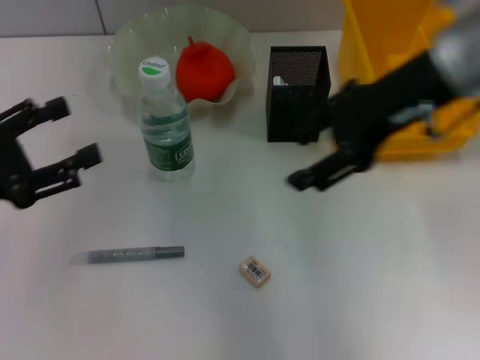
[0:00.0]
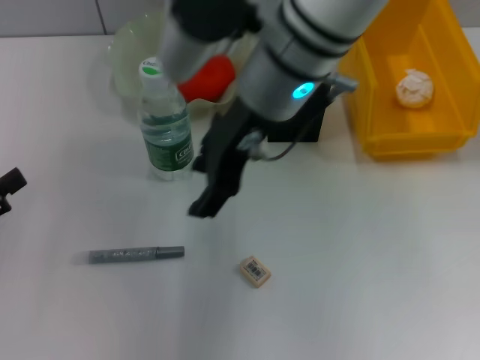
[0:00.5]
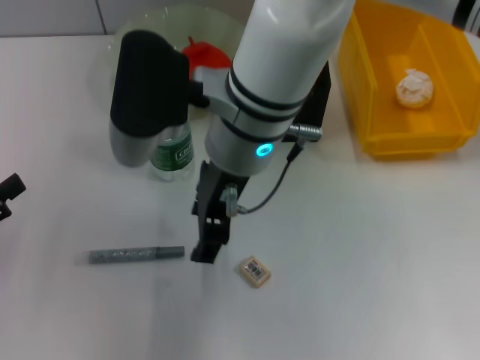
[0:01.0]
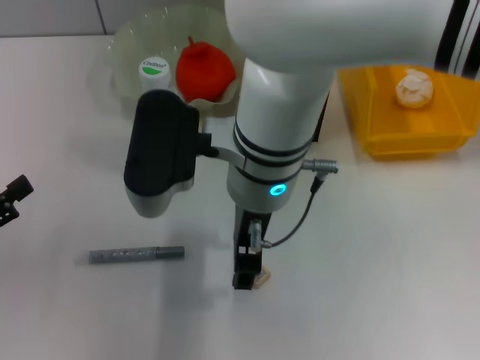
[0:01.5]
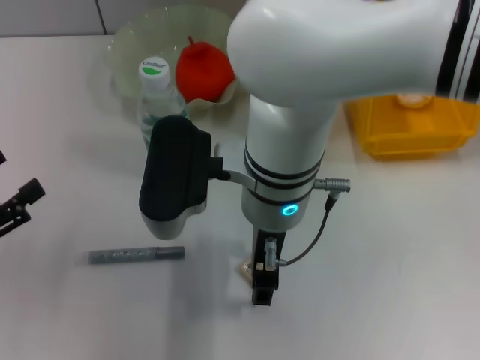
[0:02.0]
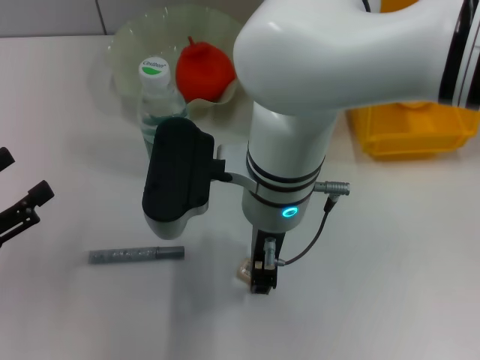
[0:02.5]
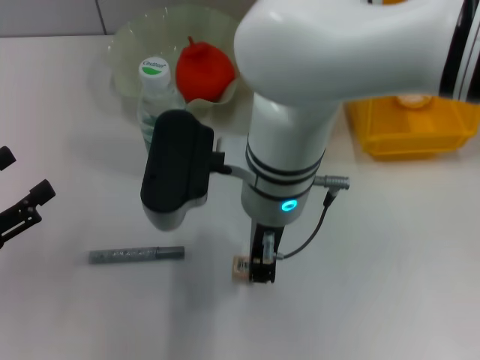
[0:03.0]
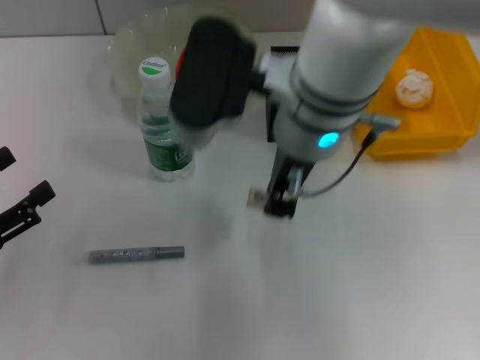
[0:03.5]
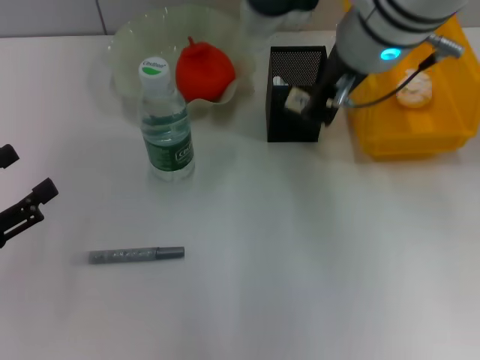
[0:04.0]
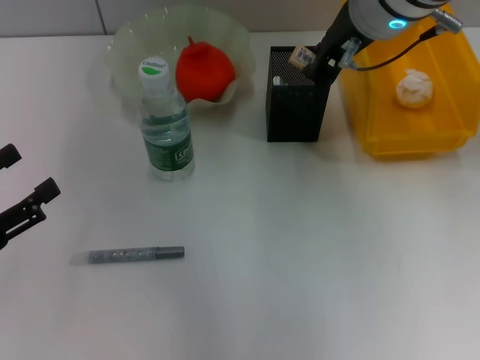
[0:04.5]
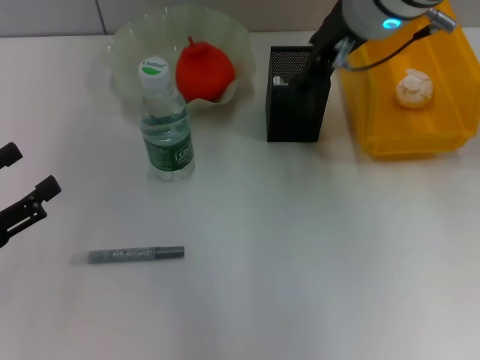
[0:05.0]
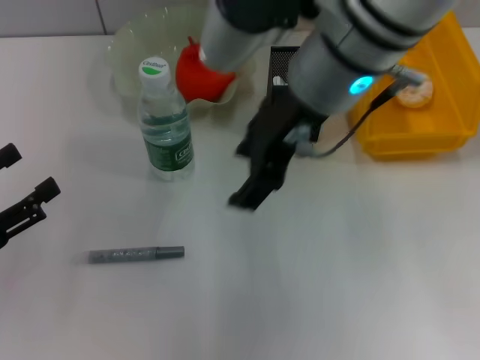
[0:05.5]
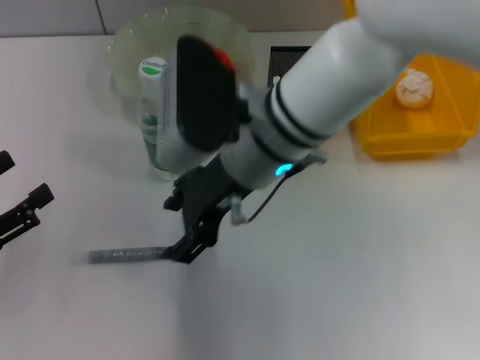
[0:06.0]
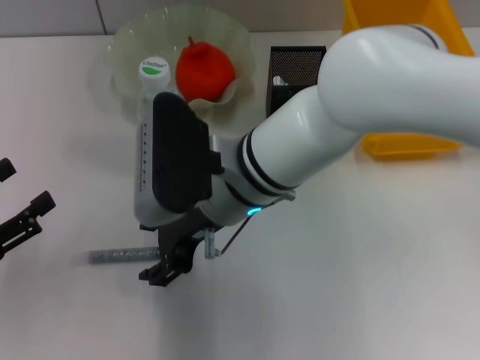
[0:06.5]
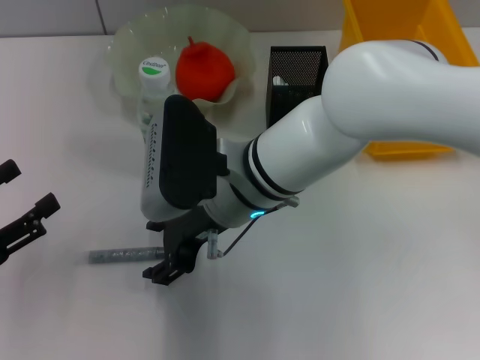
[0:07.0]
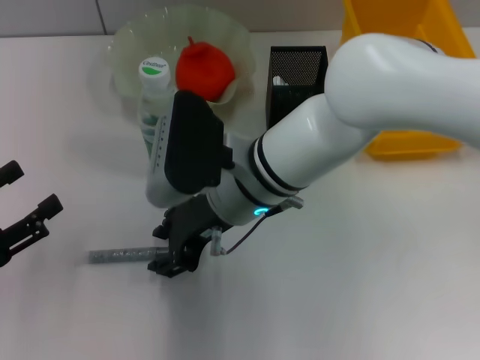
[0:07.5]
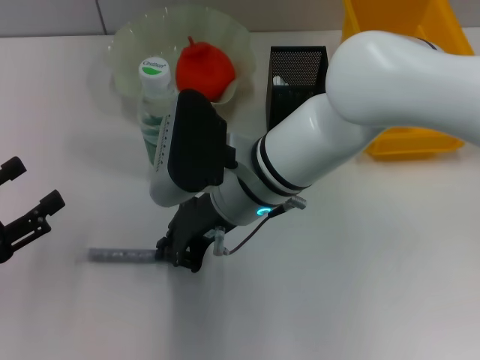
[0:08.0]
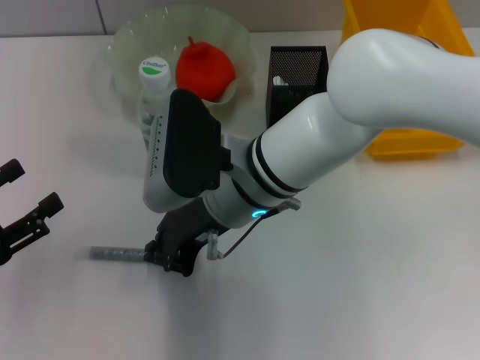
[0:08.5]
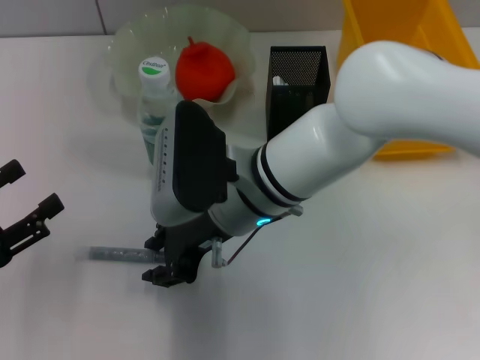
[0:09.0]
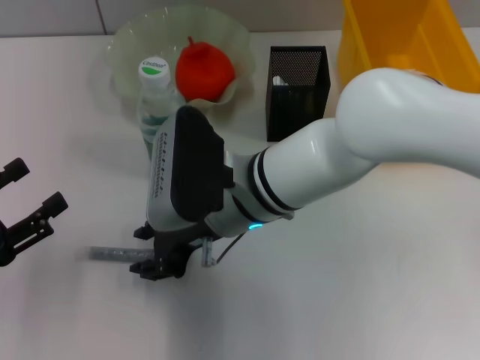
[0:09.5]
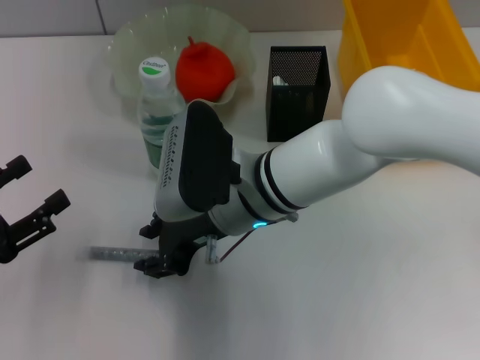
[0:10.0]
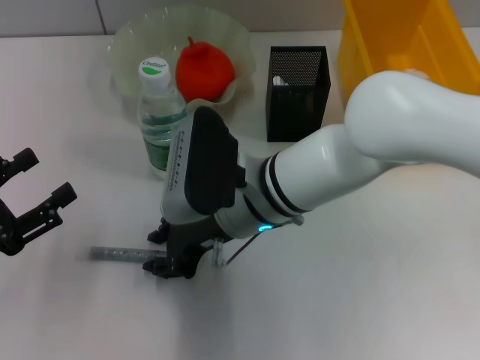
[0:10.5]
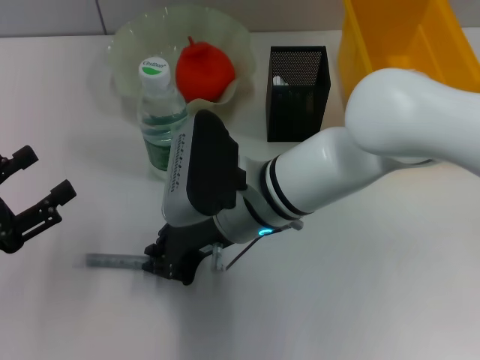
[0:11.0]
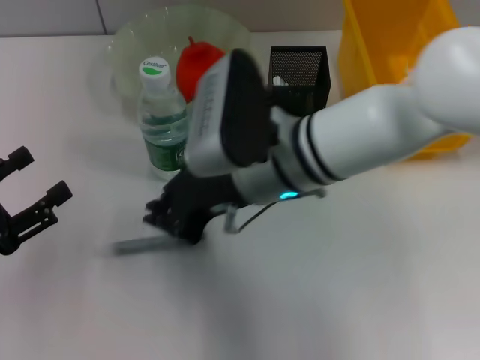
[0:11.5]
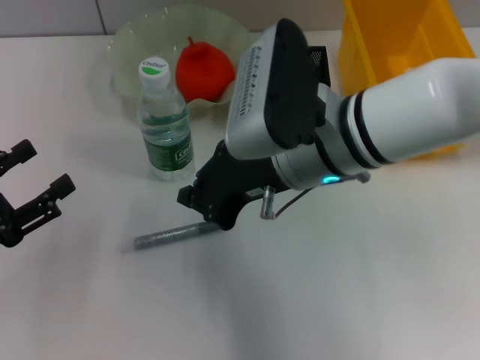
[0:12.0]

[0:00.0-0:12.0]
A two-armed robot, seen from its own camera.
Step, 0:00.0 to 0:02.5: Grab the eraser with the right hand.
Step, 0:03.5 to 0:05.0: Put the eraser into the pen holder with the right hand.
0:00.0 to 0:02.0: The left gripper travels backward and downward by some 10 cm. Meanwhile the right gripper is displaced to the left and downward by some 20 cm.
0:02.0 to 0:04.0: The right gripper travels upward, to the right and forward by roughly 15 cm, and closes up.
0:04.0 to 0:06.0: The right gripper shifts roughly 10 cm downward and to the left, and opens up.
0:06.0 to 0:08.0: The right gripper travels downward by some 5 cm, and closes.
0:08.0 to 0:10.0: The grippers move only a little.
0:10.0 to 0:12.0: The right gripper heads upward and to the right, covering roughly 10 cm, and closes its fingers.

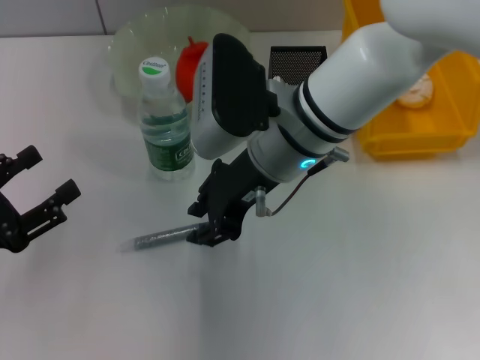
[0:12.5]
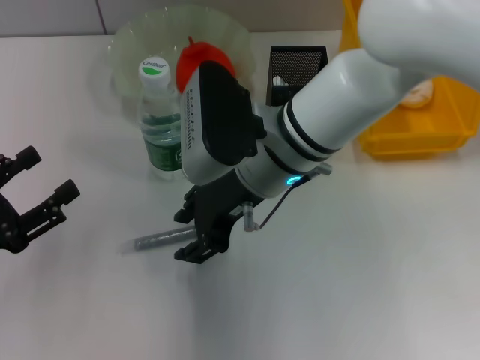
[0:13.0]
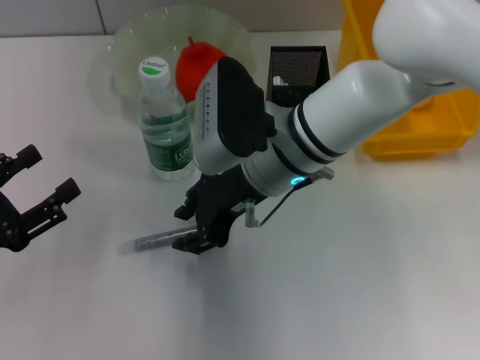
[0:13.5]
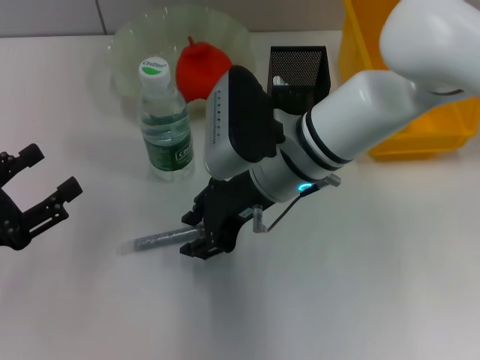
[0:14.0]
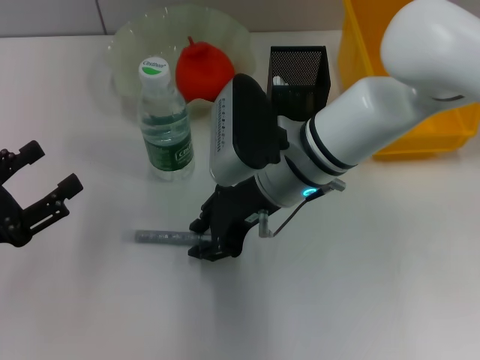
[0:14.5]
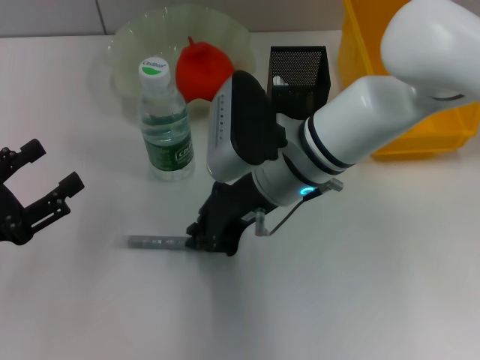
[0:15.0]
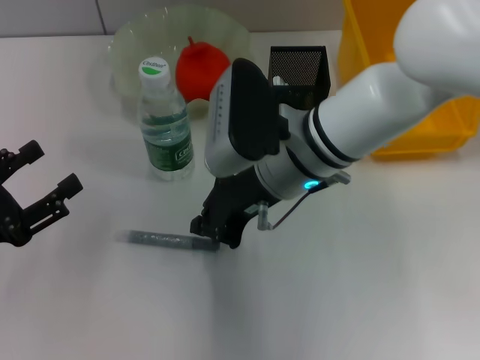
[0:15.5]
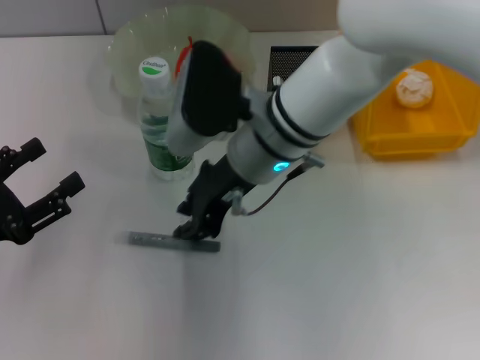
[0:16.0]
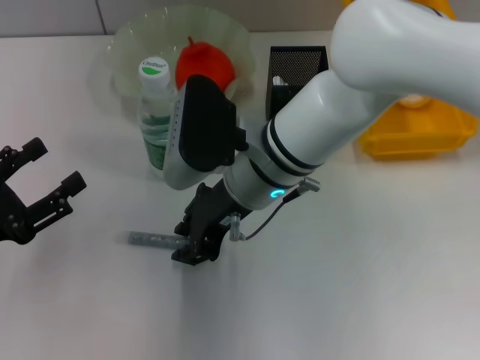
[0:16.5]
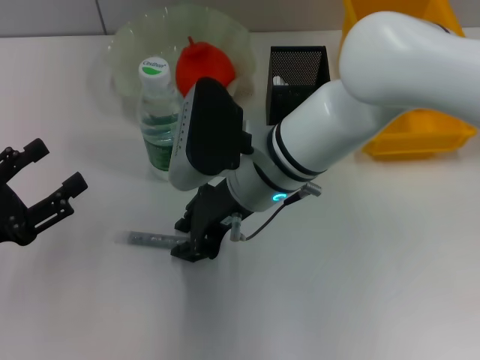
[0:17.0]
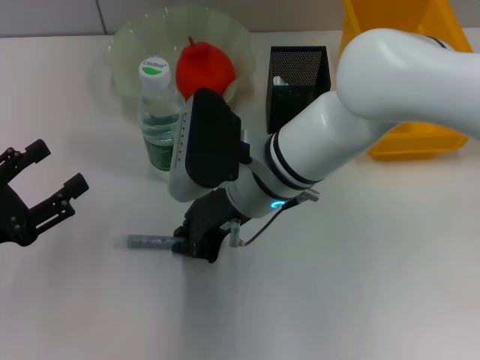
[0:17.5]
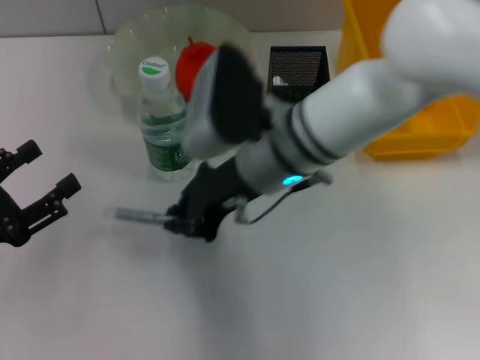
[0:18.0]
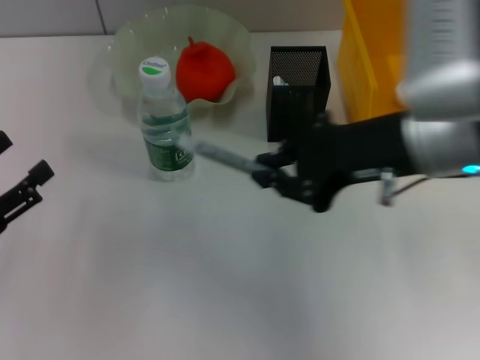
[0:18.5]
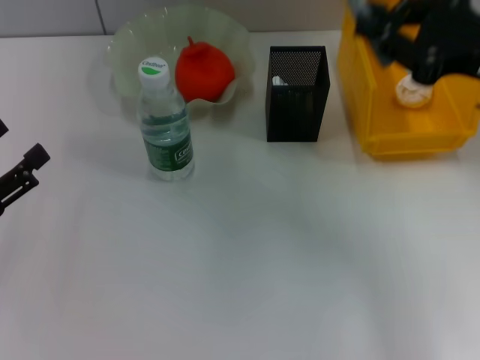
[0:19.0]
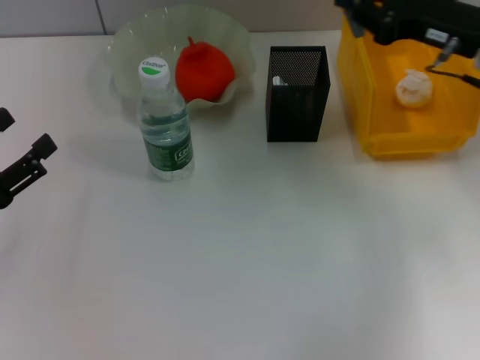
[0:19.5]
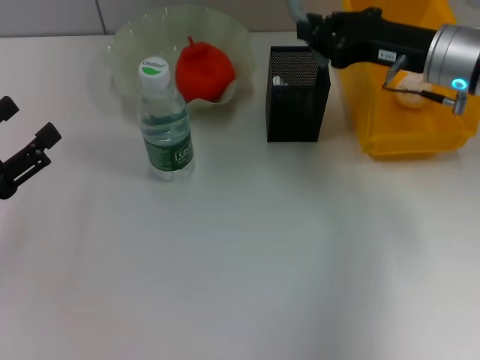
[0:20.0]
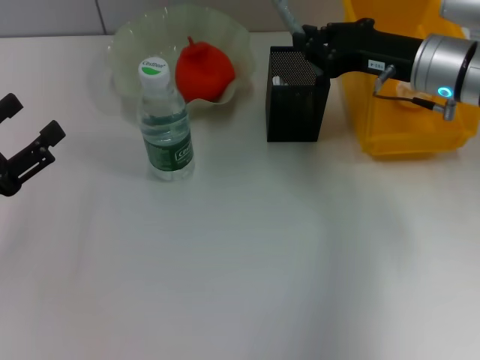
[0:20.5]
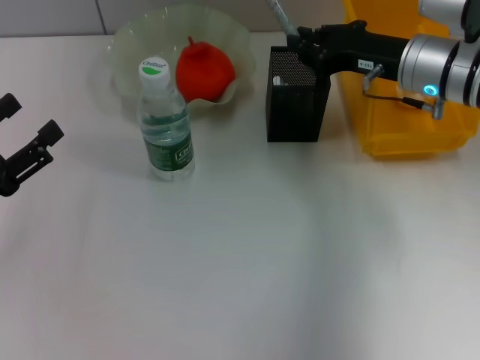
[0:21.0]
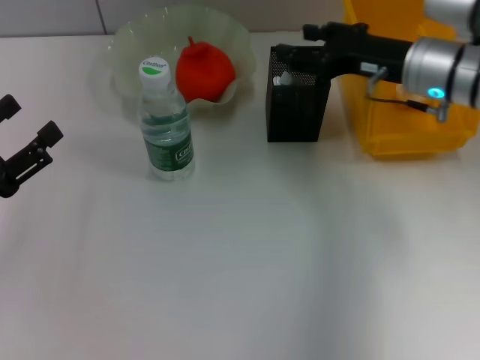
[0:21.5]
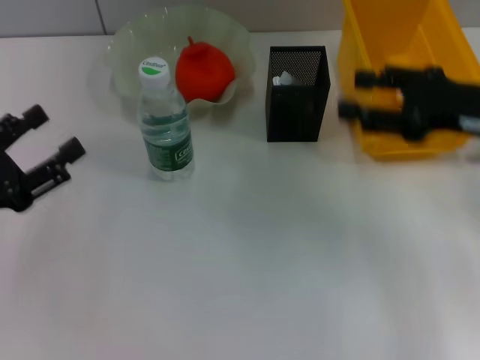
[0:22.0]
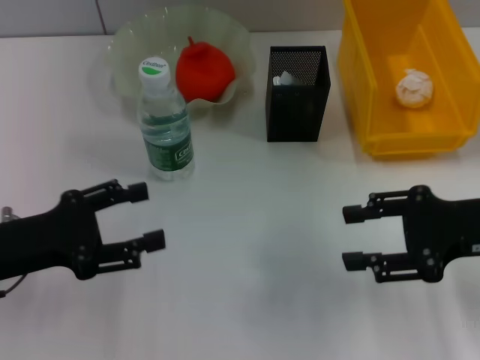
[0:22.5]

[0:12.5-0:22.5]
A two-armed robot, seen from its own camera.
Step, 0:12.5 to 0:17.5: Grab the gray glue with the right hand.
Step, 0:18.0 to 0:21.0: Place the gray glue into the pen holder with the right hand.
0:12.5 to 0:14.5: There are only small adjustments of the grippers.
0:14.5 to 0:16.5: The right gripper closes and opens again.
0:16.5 to 0:18.5: The right gripper moves to the right and upward, about 20 cm, and closes up.
0:18.5 to 0:20.5: The right gripper goes about 15 cm forward and downward.
0:20.5 to 0:22.5: The right gripper heads backward and to the right, covering some 15 cm, and opens its fingers.
